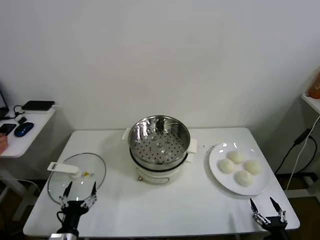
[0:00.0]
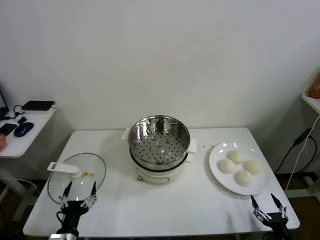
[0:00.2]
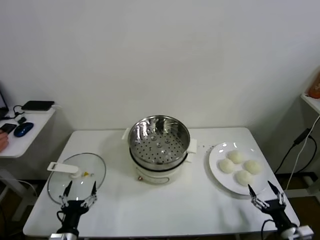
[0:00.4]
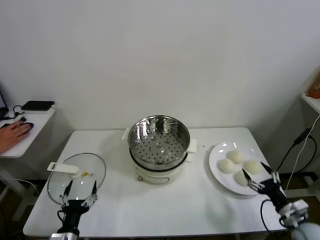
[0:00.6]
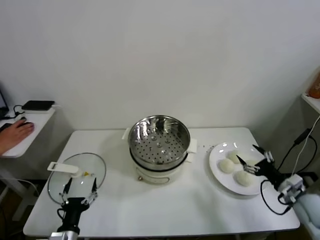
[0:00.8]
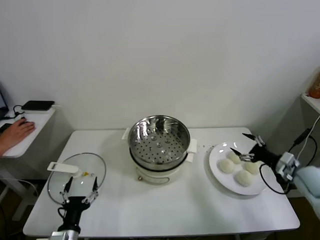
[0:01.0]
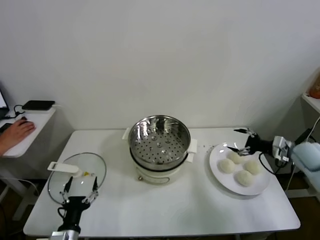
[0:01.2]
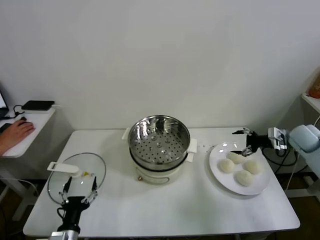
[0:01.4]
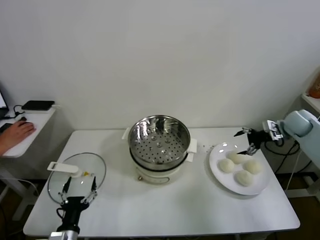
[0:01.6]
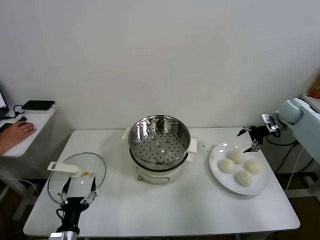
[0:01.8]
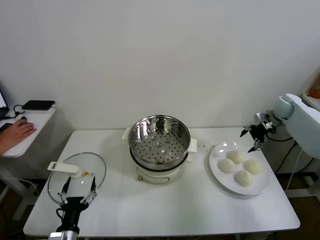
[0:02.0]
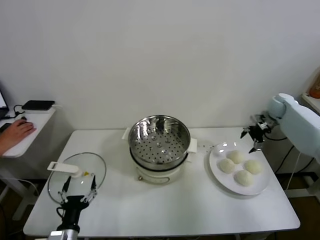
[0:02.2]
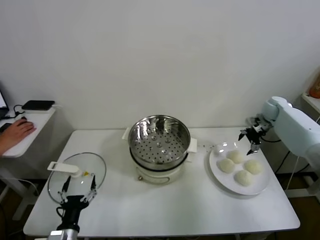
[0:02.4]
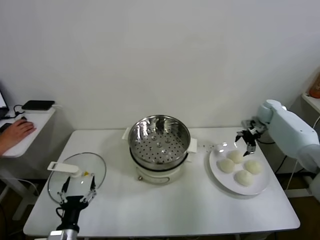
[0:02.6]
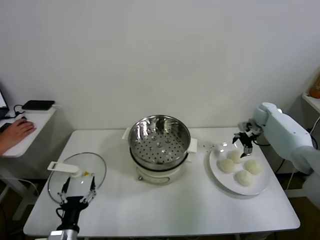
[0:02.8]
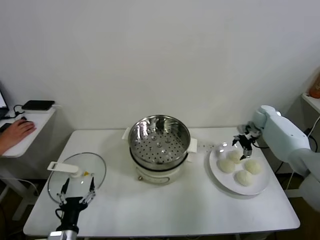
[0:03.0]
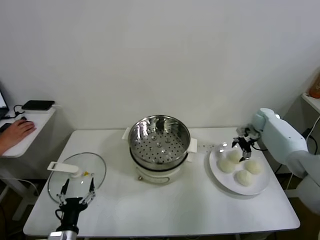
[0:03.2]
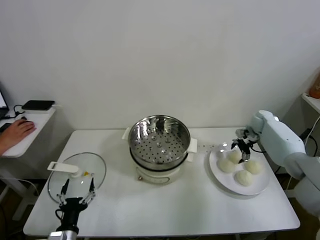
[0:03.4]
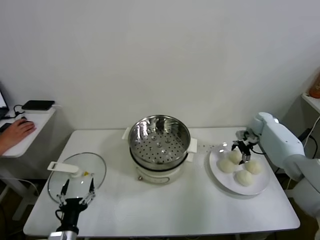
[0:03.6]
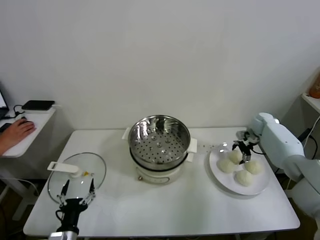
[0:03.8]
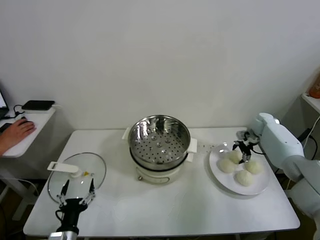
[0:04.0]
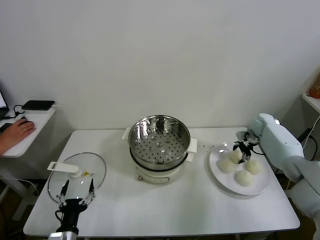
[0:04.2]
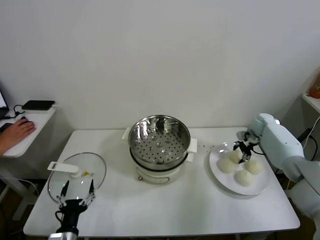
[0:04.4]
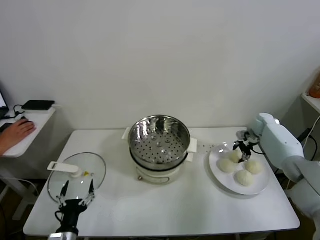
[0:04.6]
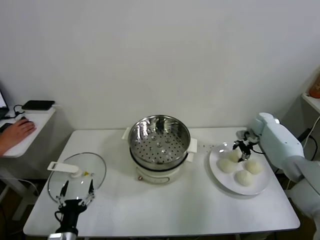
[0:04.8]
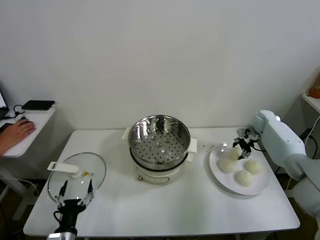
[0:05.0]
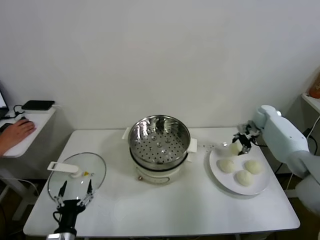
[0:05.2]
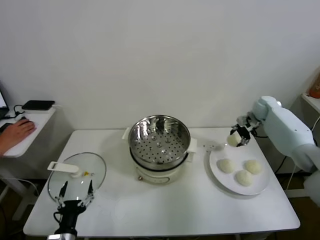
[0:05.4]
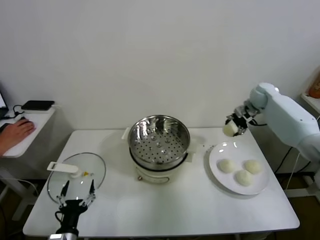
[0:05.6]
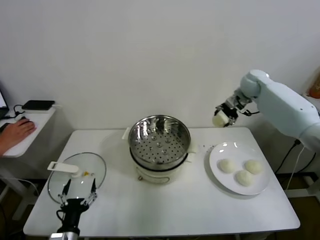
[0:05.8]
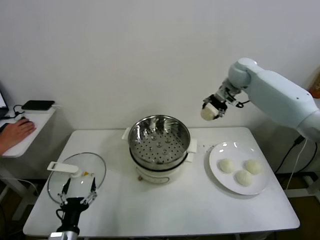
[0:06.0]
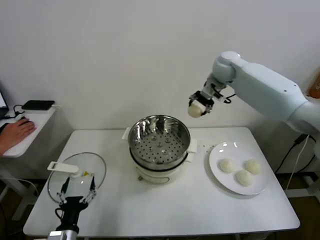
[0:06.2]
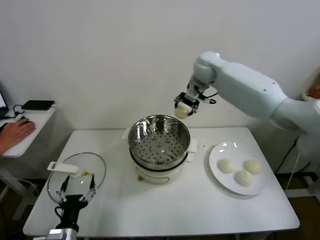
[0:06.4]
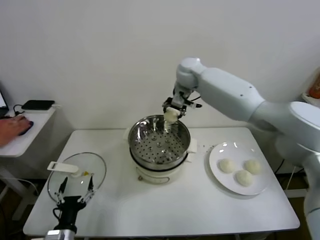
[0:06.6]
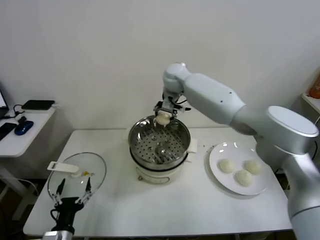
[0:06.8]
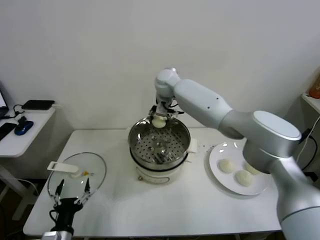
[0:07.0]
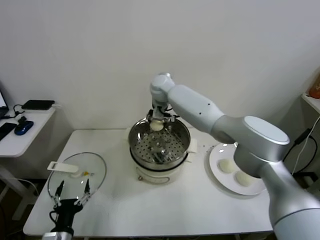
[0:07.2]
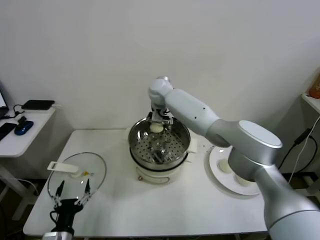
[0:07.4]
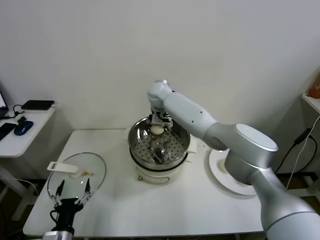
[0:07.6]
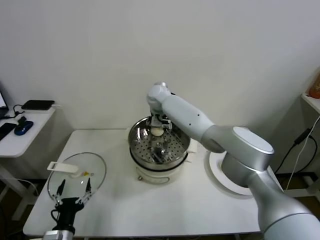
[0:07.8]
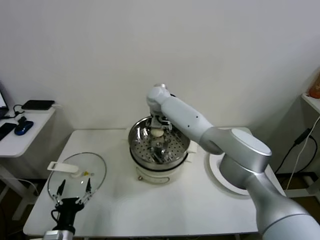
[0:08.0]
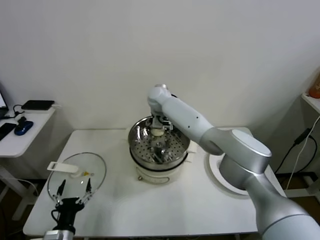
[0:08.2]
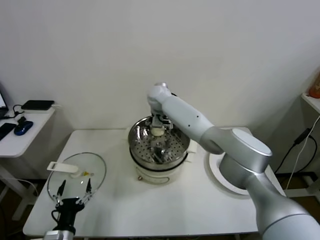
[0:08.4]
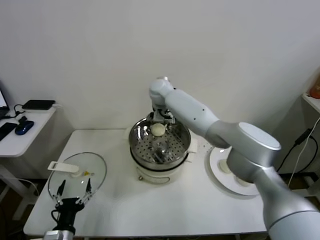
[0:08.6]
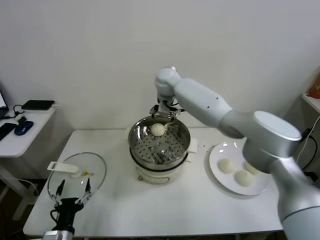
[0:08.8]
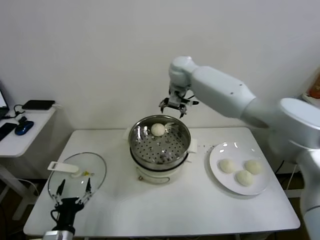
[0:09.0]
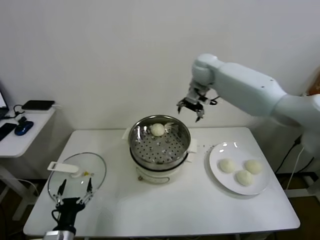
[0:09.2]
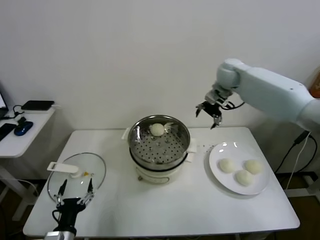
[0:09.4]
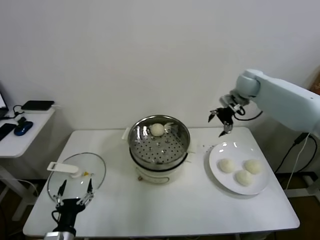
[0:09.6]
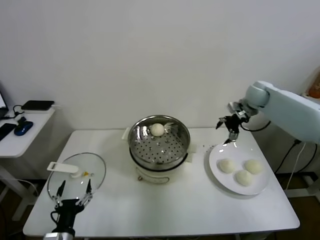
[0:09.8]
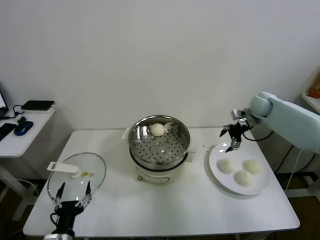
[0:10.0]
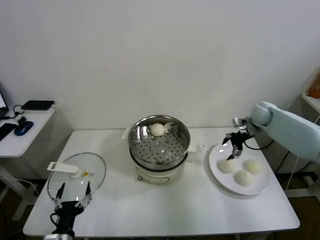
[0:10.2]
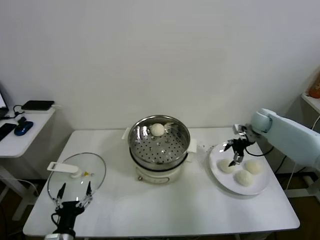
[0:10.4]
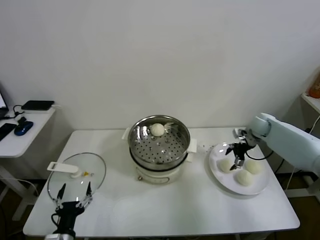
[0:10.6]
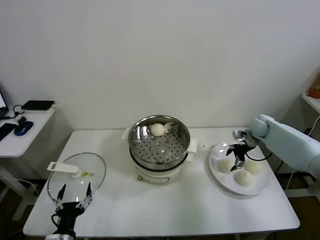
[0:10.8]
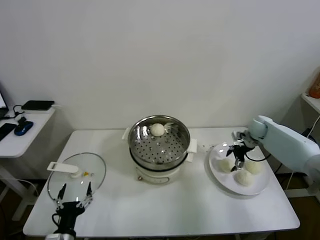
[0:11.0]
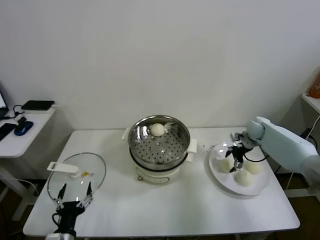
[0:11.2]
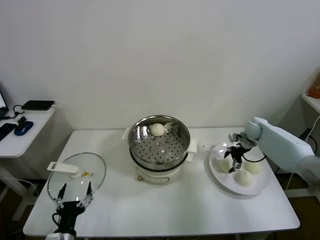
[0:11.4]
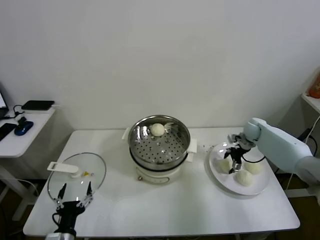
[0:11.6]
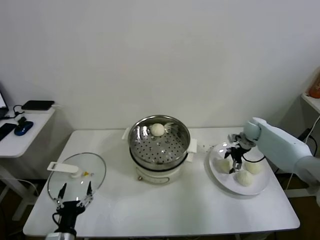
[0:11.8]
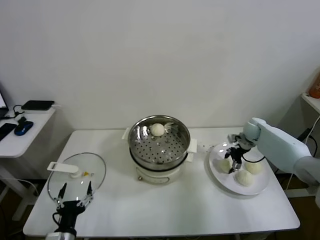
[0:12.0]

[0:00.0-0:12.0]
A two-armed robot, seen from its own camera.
Task of the whole recording: take steamed baozi put them in steamer.
Step, 0:00.0 to 0:04.8: Grasp the baozi in the plate with right gripper.
Step, 0:05.0 to 0:08.6: Place the baozi on the steamer with right gripper.
0:01.6 to 0:03.0: The right gripper shifts about 10 cm downward, forward and to the left.
0:03.0 to 0:04.4: The right gripper closes its fingers.
0:04.4 to 0:06.0: The right gripper goes about 30 cm upward and to the left.
0:06.0 to 0:07.6: The right gripper heads to the left and downward, covering some 30 cm.
0:07.6 to 0:09.0: The right gripper travels to the right and upward by some 15 cm, and opens.
0:09.0 to 0:10.4: The right gripper goes roughly 35 cm to the right and downward.
0:10.4 to 0:12.0: The right gripper travels downward by roughly 5 cm, and closes its fingers.

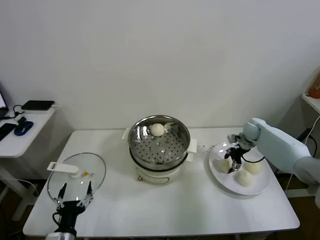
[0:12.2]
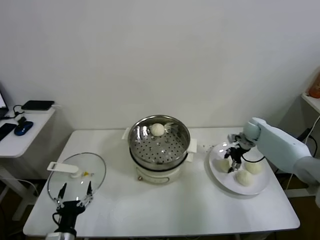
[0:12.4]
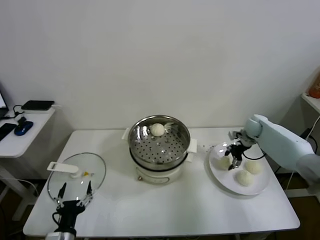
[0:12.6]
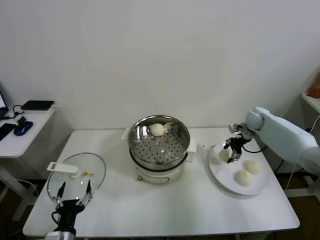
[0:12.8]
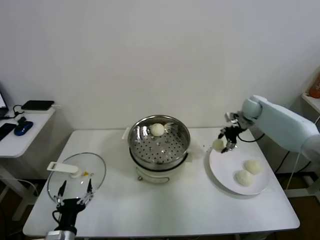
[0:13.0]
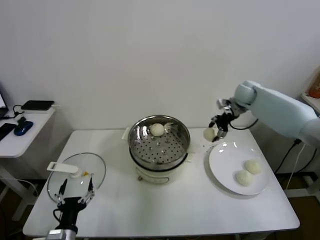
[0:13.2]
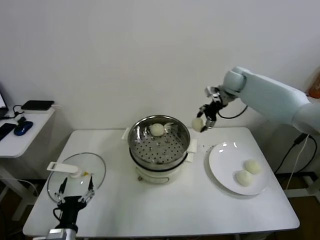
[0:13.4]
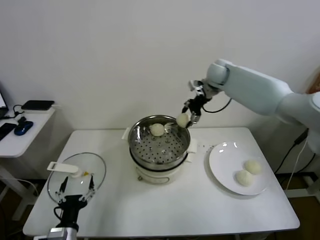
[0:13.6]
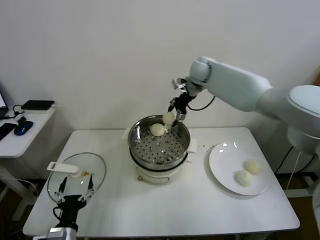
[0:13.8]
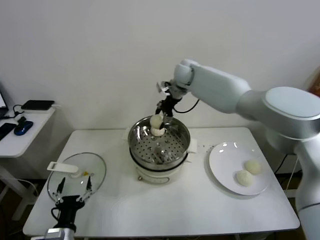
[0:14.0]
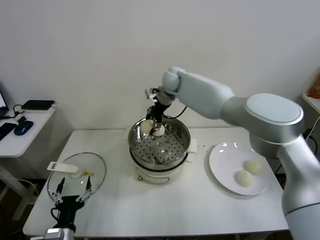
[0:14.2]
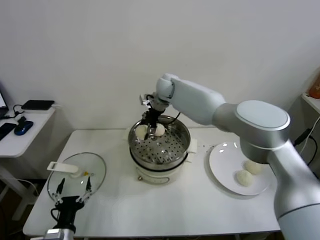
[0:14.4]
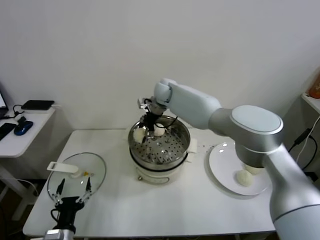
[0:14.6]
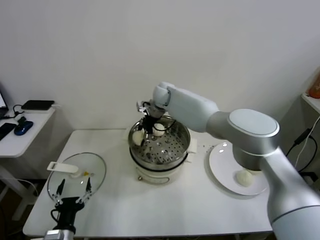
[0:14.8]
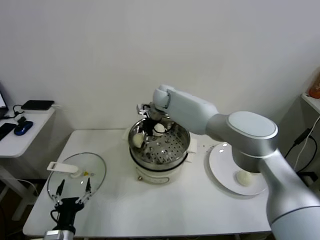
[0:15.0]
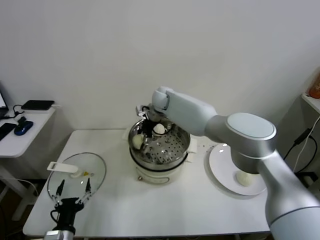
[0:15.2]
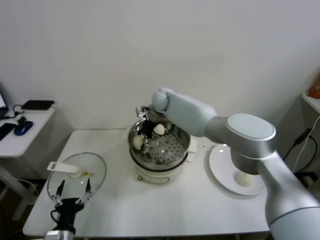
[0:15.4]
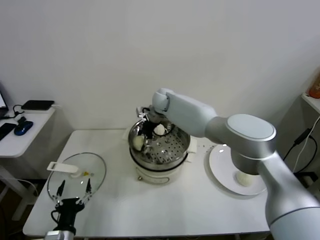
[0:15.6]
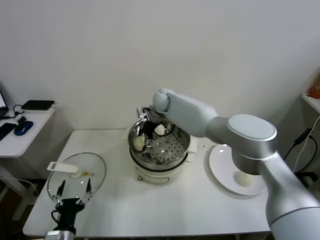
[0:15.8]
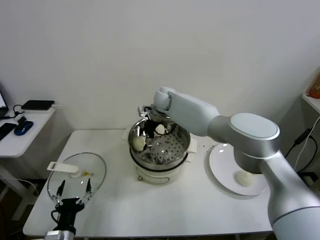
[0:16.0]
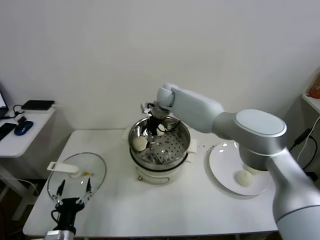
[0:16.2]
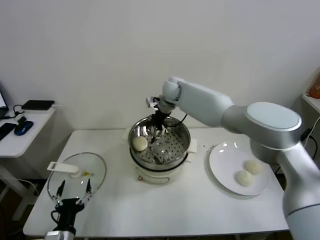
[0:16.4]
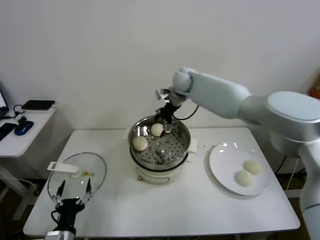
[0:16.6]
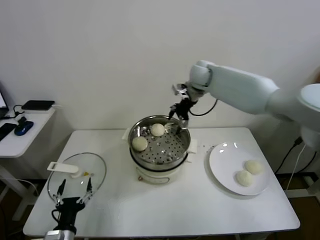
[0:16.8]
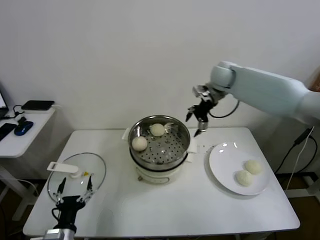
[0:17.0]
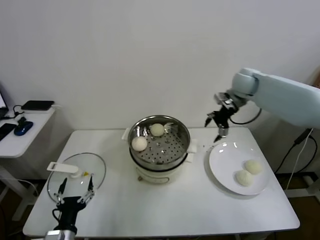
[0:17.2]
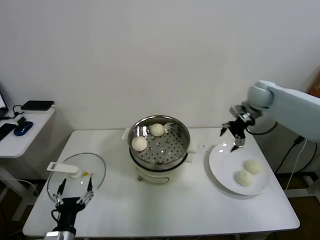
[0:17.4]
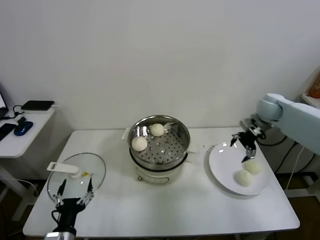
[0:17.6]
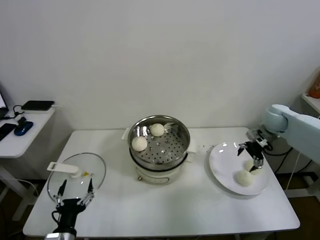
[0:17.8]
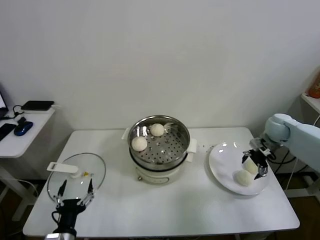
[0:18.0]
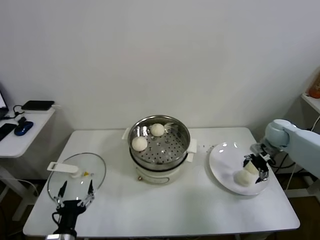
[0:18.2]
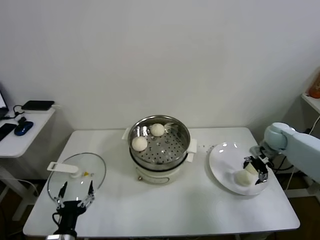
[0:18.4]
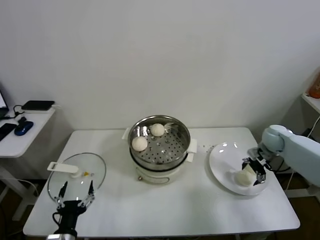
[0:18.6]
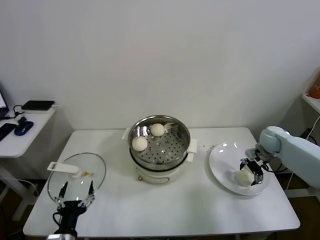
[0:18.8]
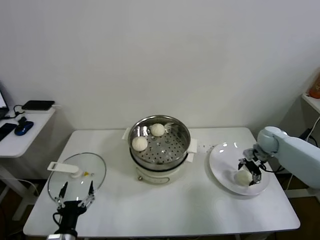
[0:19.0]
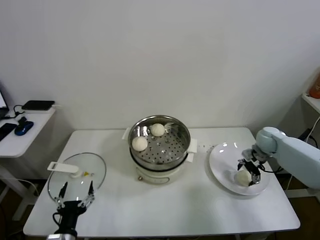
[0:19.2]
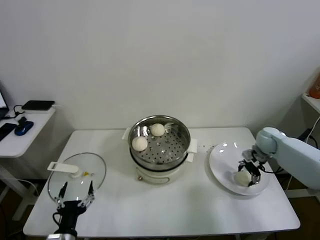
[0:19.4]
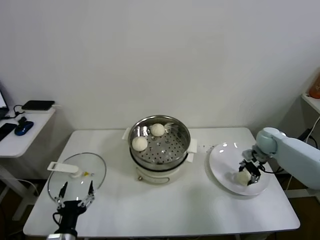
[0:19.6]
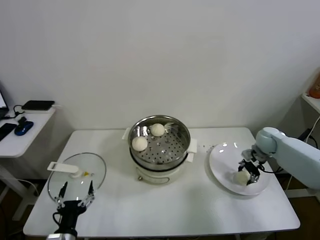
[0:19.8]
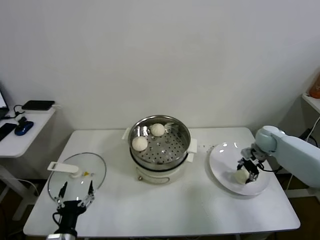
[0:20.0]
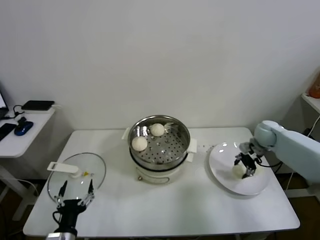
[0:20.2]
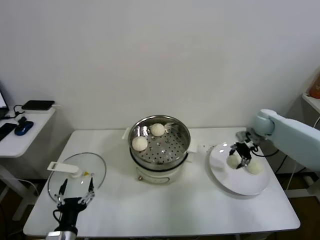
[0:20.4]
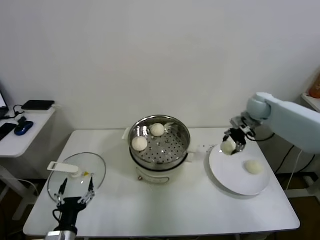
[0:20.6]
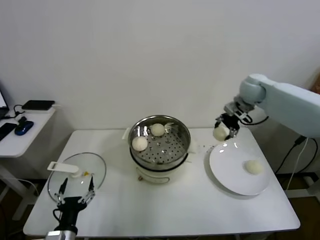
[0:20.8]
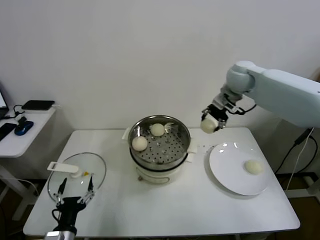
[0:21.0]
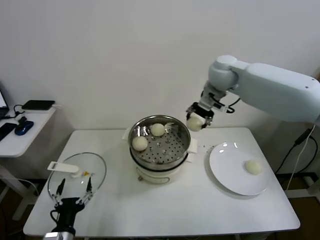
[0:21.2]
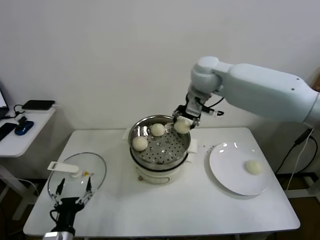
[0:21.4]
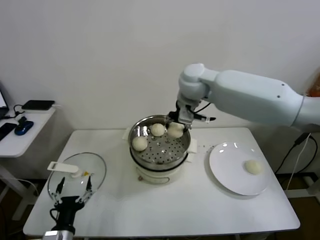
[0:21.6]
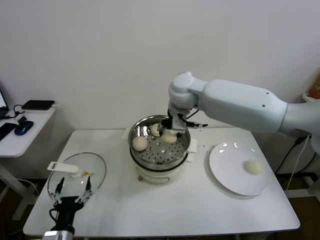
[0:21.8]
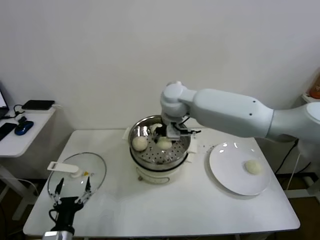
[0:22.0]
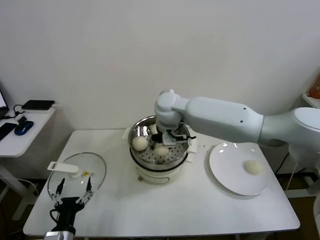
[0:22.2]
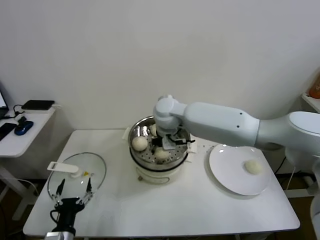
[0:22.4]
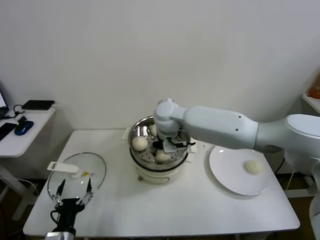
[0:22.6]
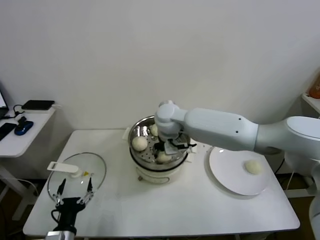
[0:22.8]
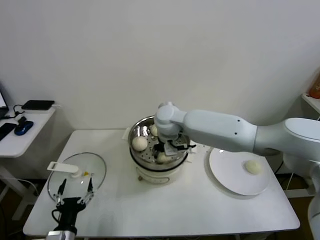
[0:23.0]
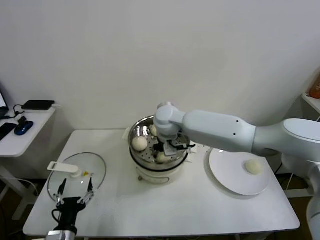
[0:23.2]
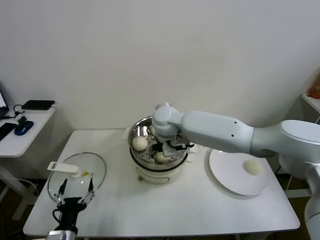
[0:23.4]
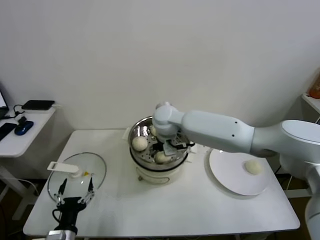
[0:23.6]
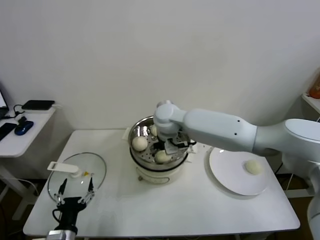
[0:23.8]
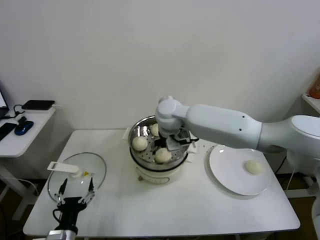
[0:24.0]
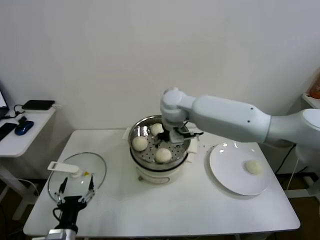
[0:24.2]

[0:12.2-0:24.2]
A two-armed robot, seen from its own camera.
Task of the whole recording: take steamed baozi put them in steamer.
Step, 0:12.4 to 0:16.2: Place the baozi on the steamer with right gripper.
Step, 0:16.4 to 0:19.4: Grasp the baozi in the plate with right gripper.
Step, 0:19.6 to 0:23.8: Place the baozi on the steamer with right gripper.
0:12.2 to 0:13.8: The right gripper goes roughly 35 cm to the left and upward.
0:13.8 to 0:15.2: The right gripper heads to the left and downward, covering roughly 15 cm.
0:15.2 to 0:16.6: The right gripper is displaced to the right and upward by some 15 cm, and opens.
0:16.6 to 0:18.2: The right gripper travels to the right and downward by roughly 40 cm.
0:18.2 to 0:19.8: The right gripper closes its fingers.
0:19.8 to 0:21.2: The right gripper shifts about 35 cm upward and to the left.
0:21.2 to 0:22.6: The right gripper moves to the left and downward, some 20 cm.
0:22.6 to 0:24.2: The right gripper opens up.
